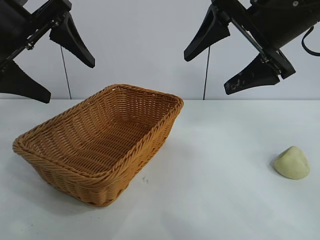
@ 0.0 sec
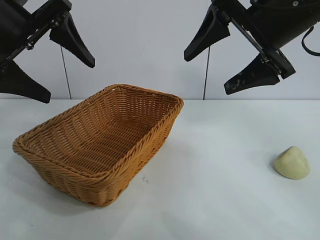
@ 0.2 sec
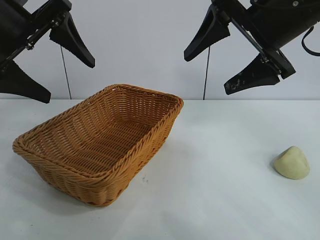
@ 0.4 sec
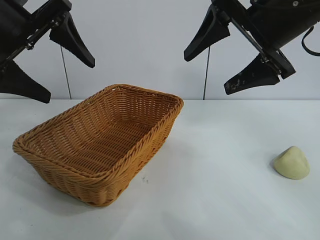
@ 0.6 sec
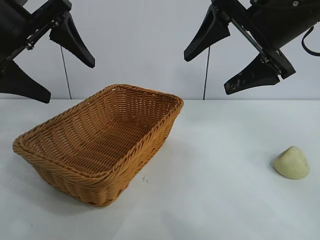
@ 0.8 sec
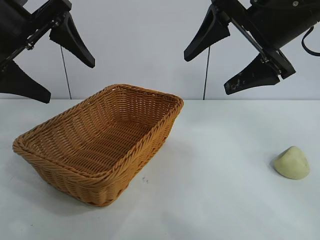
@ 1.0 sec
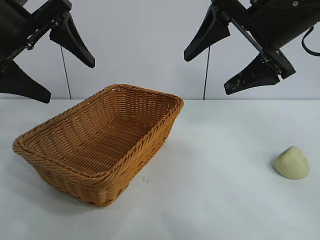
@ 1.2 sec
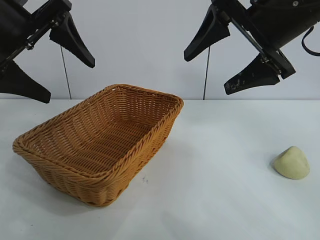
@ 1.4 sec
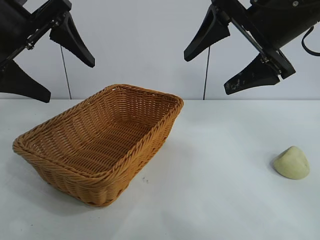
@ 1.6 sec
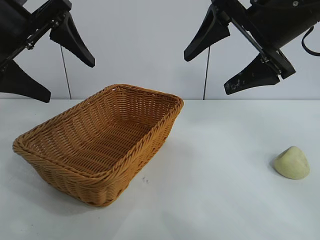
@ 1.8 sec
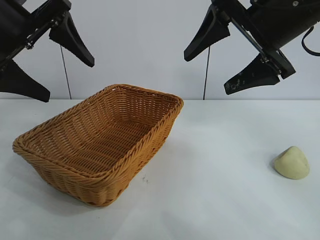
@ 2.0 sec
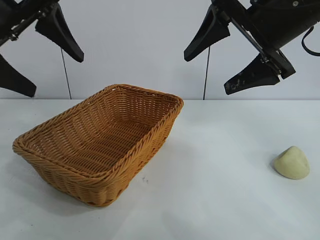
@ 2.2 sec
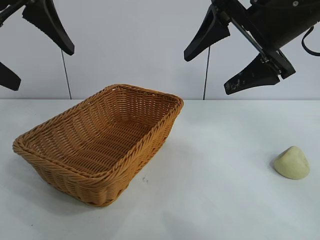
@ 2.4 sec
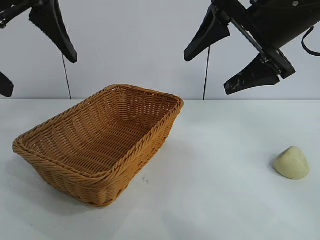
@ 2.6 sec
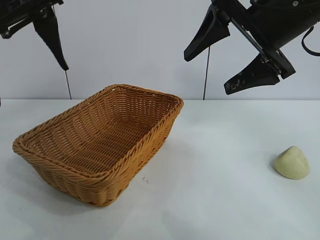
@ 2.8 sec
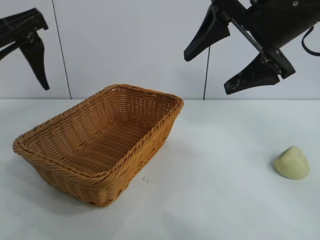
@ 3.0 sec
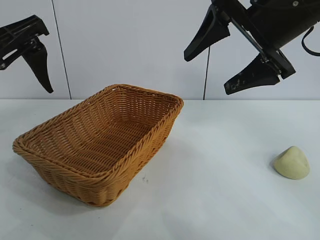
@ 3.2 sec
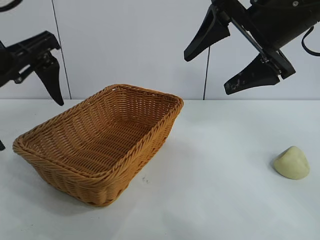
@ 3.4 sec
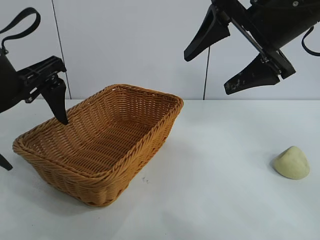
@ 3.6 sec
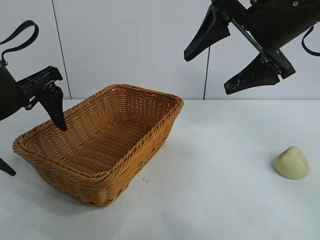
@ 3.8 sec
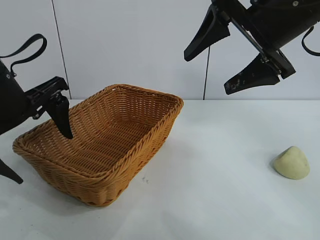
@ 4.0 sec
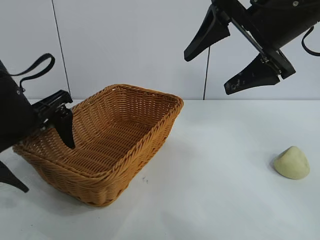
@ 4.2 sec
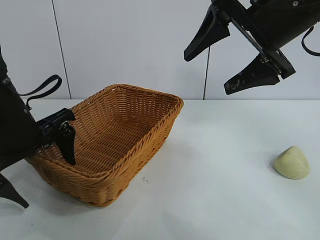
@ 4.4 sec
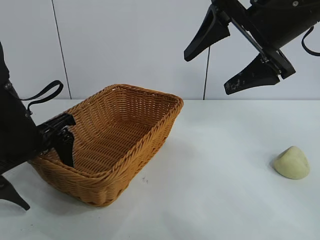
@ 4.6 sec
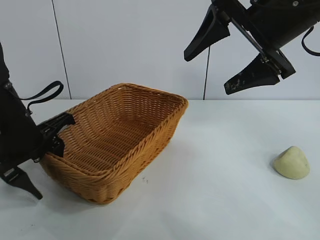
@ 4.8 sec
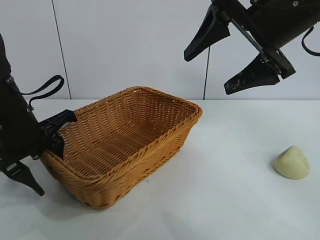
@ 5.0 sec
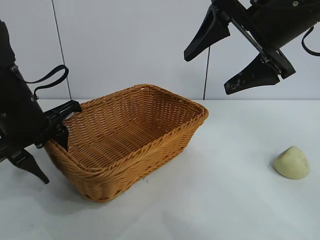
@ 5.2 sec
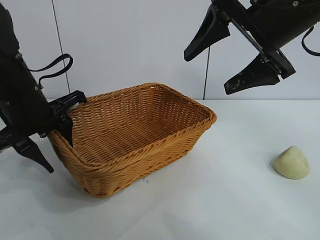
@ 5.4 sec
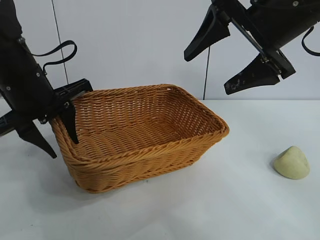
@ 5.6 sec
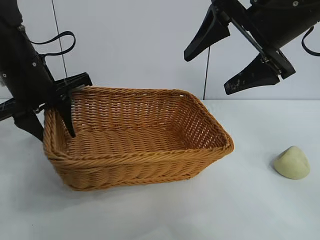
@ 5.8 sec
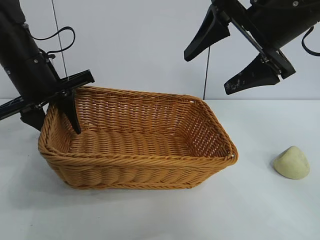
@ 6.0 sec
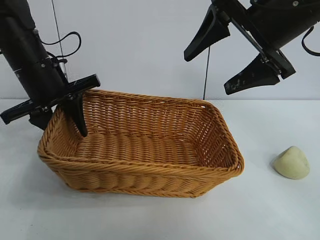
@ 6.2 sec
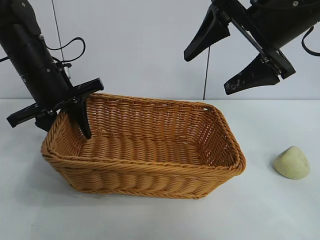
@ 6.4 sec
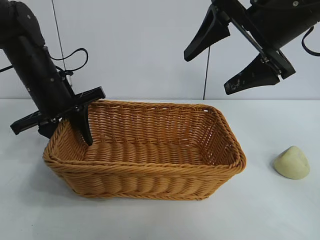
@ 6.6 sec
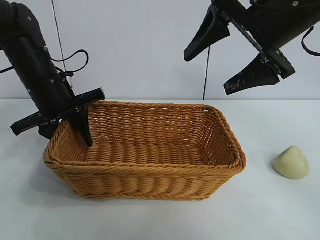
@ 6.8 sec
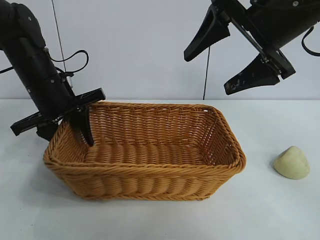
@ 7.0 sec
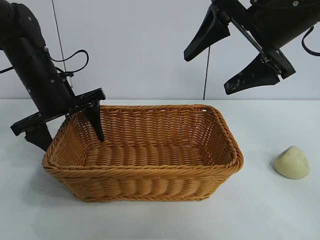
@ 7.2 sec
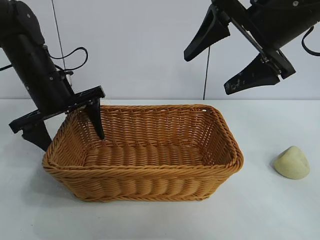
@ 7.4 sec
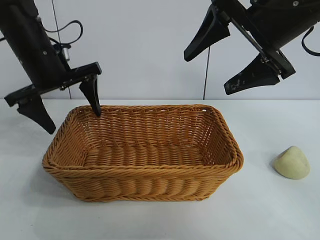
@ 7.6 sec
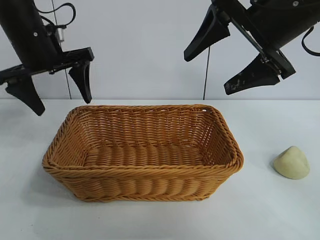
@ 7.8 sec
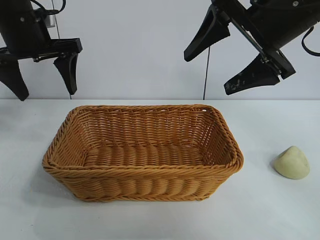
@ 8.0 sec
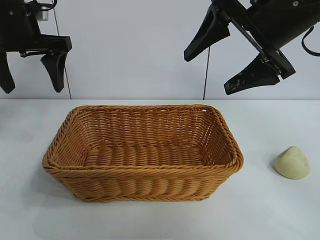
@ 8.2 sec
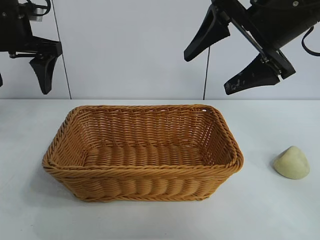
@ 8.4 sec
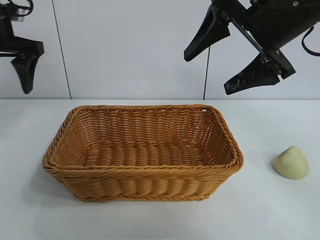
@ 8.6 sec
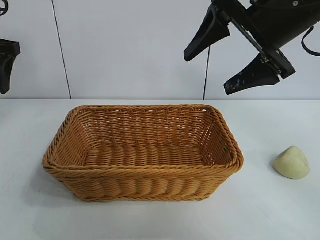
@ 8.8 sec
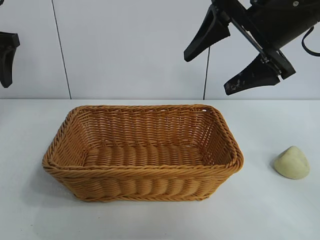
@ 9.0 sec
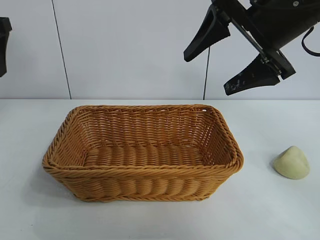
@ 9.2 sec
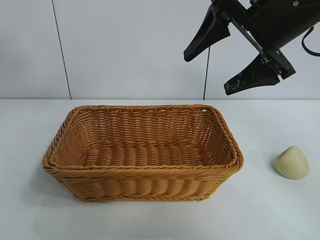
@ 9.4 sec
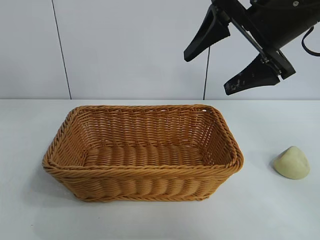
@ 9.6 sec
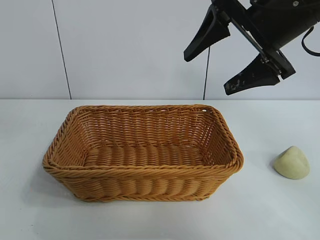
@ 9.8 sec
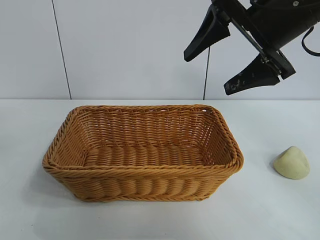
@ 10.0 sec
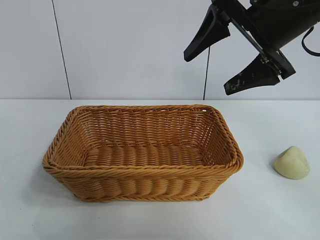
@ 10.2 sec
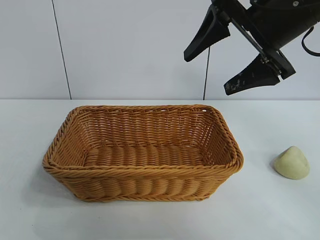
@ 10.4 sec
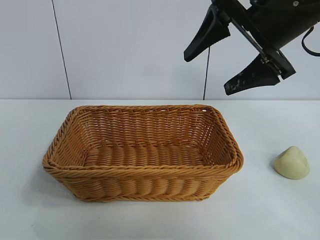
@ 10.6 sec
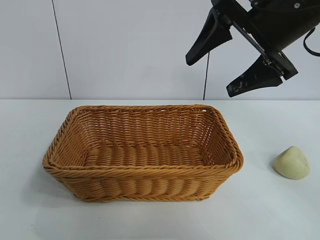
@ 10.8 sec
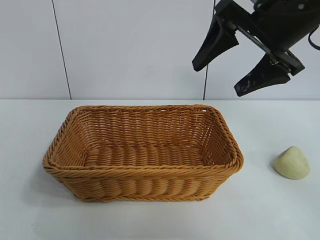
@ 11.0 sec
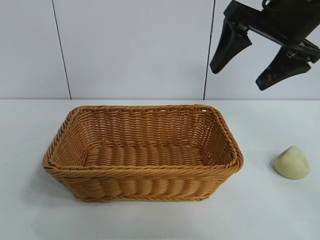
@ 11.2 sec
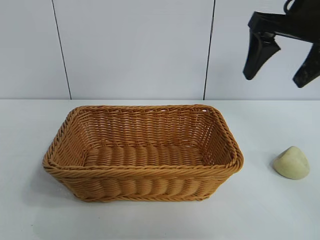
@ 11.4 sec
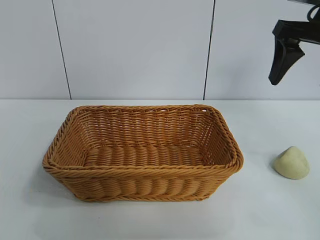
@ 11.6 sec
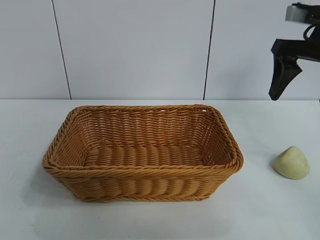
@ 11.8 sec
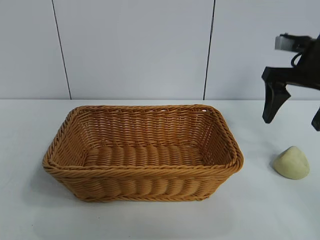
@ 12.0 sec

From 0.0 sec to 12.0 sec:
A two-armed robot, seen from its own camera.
Task of the whole recording: pick up the egg yolk pastry and put it into the basket.
Step, from 1.6 sec to 4.8 sec: Grasp the basket with left gripper.
Step, from 5.0 sec to 7.0 sec: Place the basket in the center of view with left gripper.

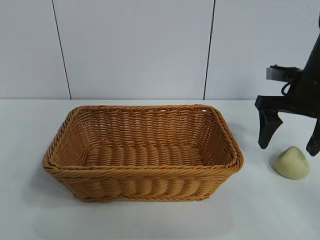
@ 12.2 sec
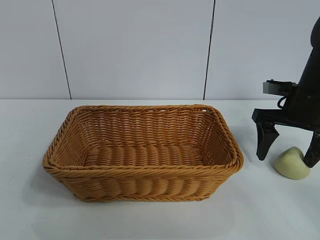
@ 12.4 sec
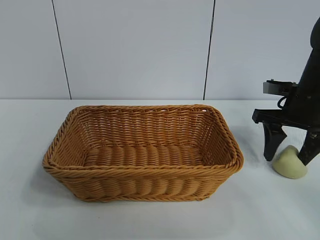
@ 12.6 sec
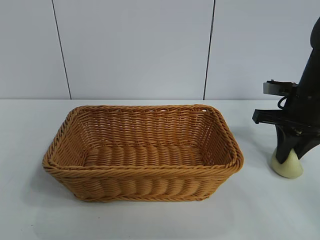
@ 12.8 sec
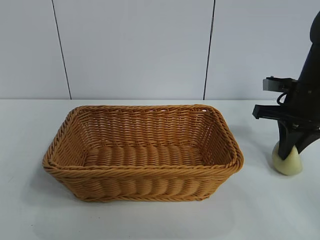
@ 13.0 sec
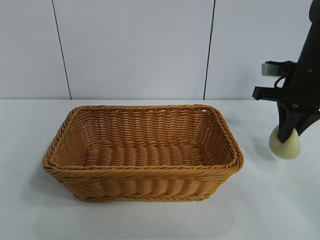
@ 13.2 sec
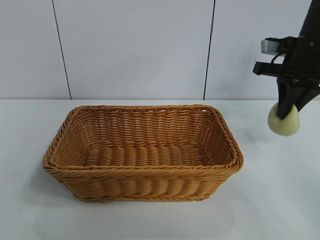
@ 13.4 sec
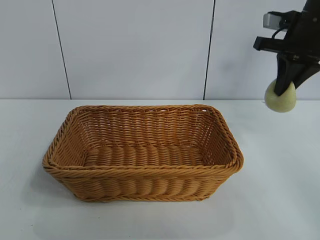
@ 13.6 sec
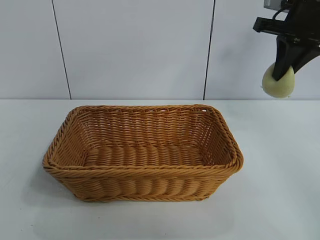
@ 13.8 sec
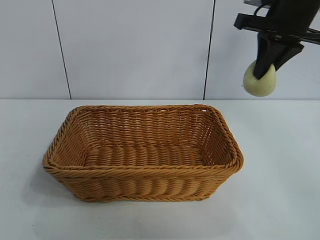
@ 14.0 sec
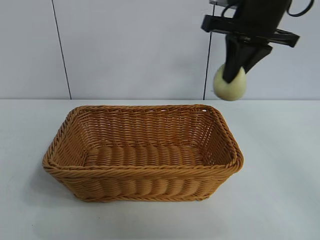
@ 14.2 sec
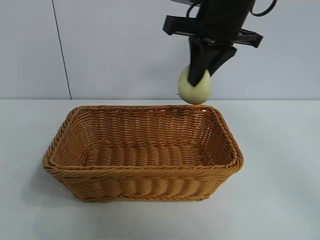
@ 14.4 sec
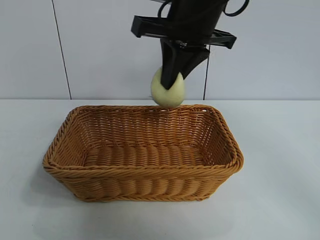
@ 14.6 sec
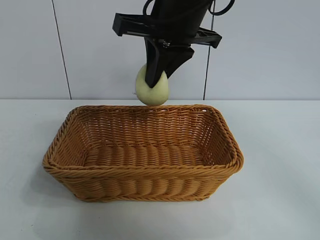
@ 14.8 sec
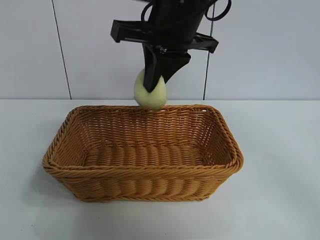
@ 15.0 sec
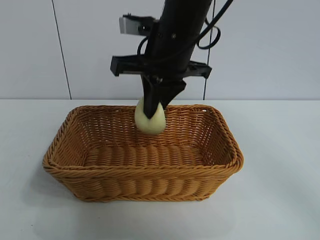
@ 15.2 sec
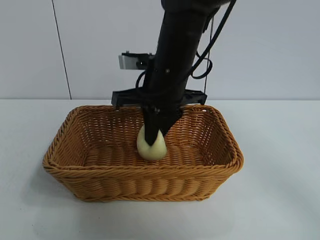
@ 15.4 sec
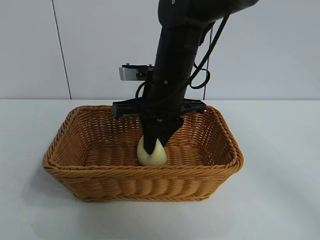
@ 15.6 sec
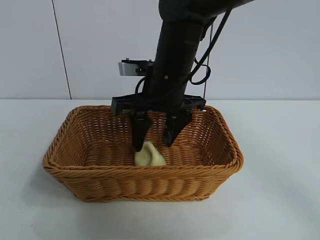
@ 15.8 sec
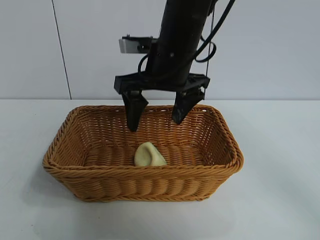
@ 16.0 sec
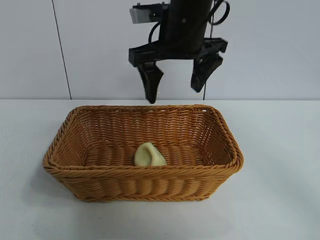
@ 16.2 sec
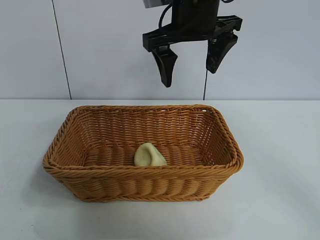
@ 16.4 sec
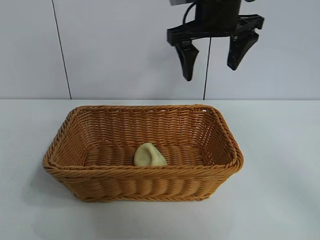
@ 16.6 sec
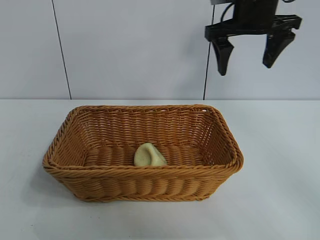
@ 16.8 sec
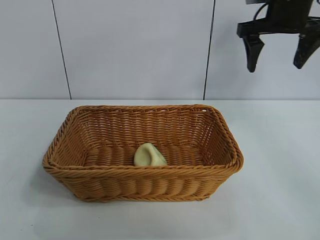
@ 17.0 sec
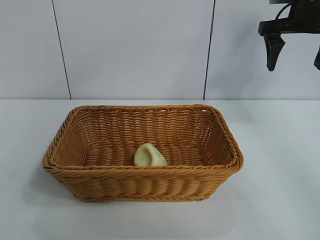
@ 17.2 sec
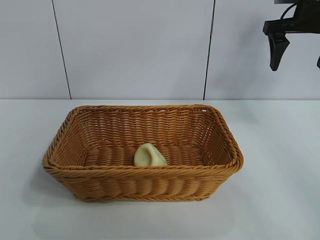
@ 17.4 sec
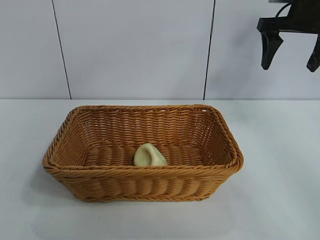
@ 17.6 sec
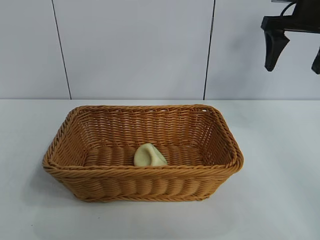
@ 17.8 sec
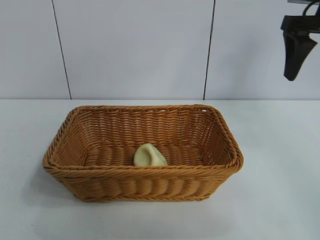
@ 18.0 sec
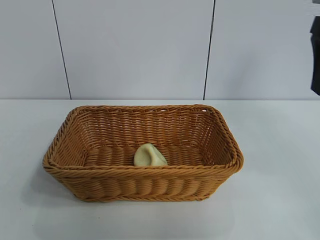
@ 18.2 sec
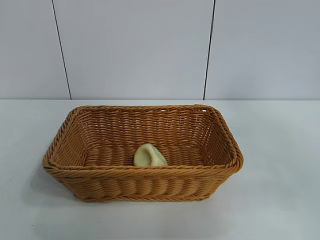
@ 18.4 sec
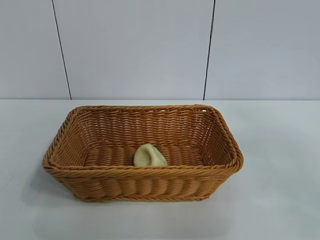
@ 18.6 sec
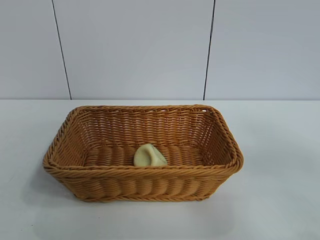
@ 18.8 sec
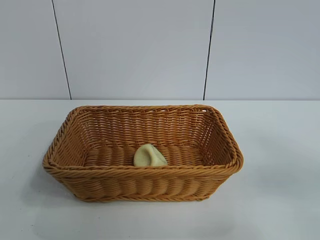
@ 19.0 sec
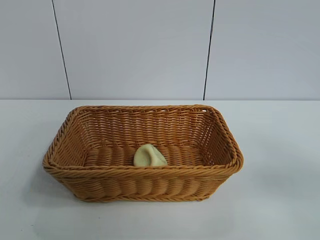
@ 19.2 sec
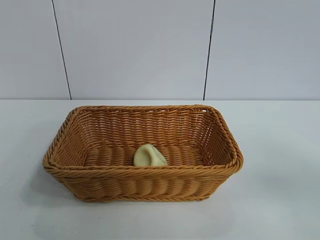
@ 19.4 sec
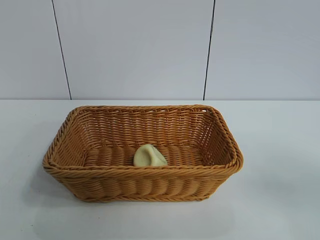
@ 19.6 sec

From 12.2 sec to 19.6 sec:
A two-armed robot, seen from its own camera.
Task of the whole recording: pick up the egg yolk pastry and put it into the basket.
Step, from 12.8 sec to 15.6 sec: Place the egg yolk pastry in the basket with right gripper.
